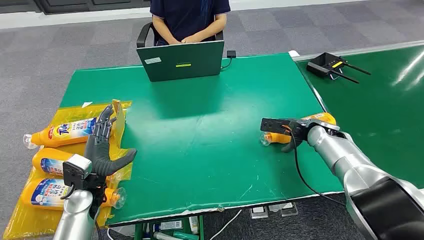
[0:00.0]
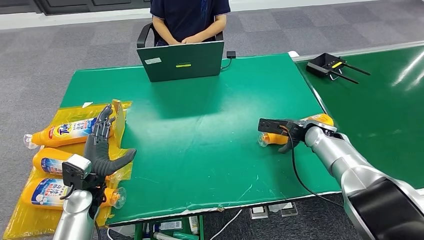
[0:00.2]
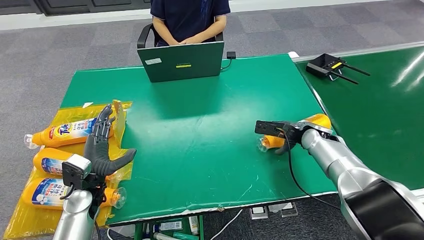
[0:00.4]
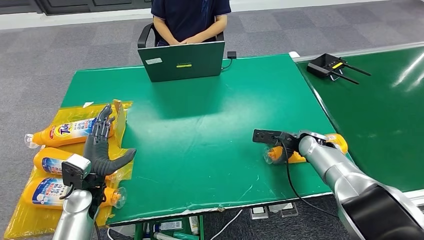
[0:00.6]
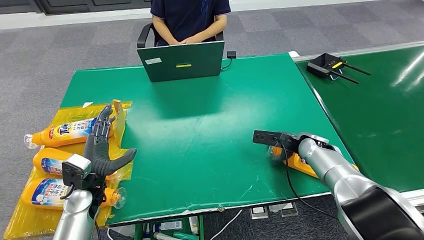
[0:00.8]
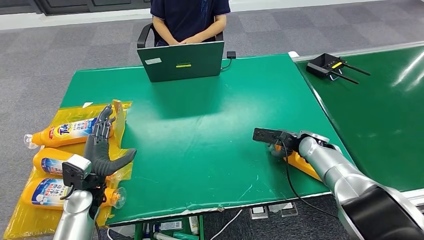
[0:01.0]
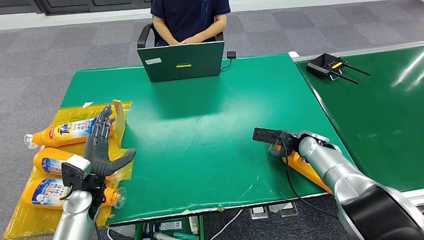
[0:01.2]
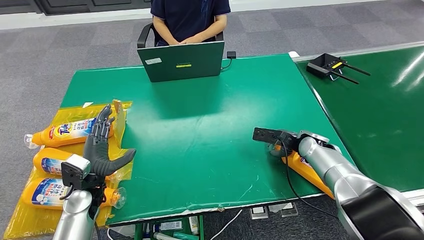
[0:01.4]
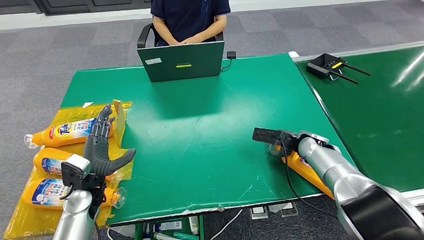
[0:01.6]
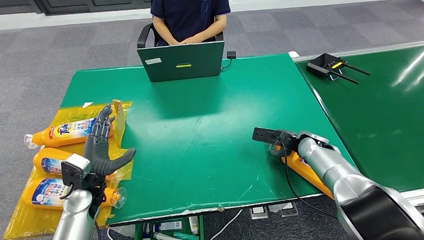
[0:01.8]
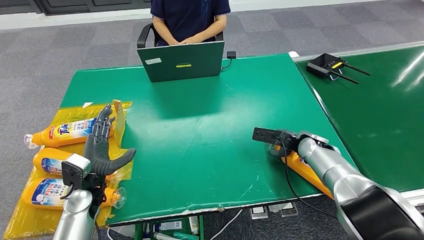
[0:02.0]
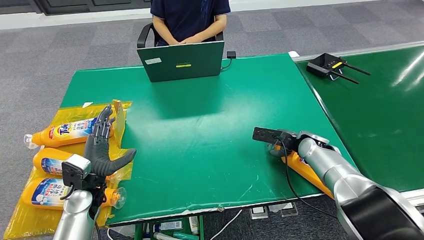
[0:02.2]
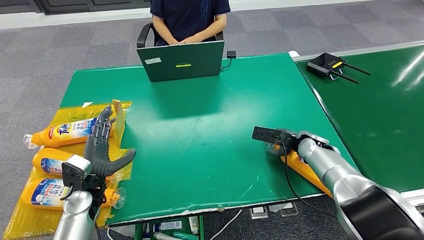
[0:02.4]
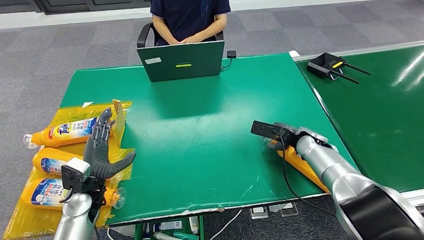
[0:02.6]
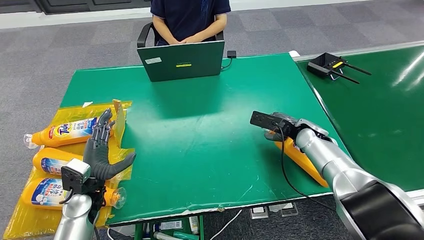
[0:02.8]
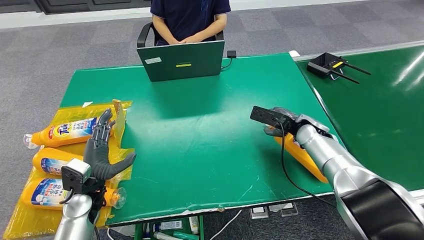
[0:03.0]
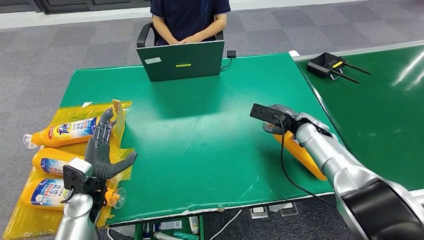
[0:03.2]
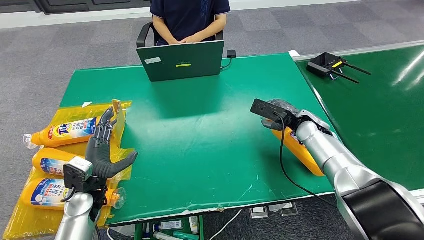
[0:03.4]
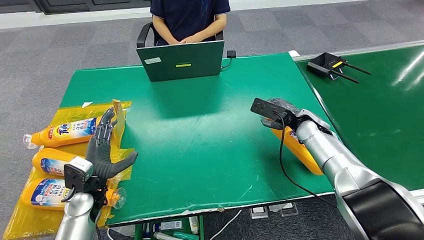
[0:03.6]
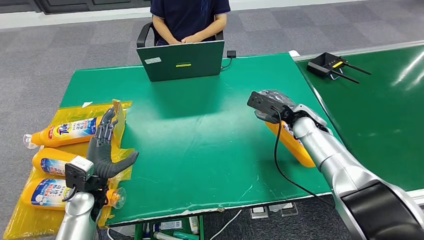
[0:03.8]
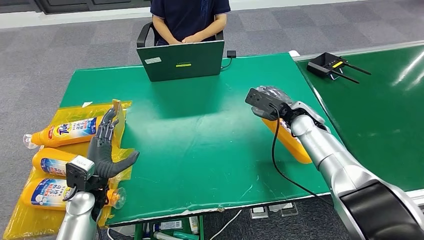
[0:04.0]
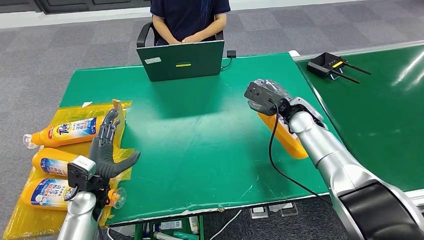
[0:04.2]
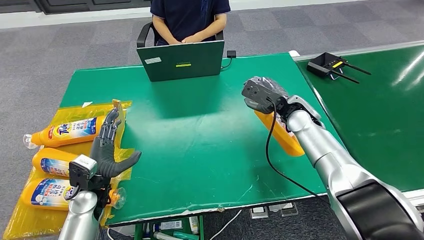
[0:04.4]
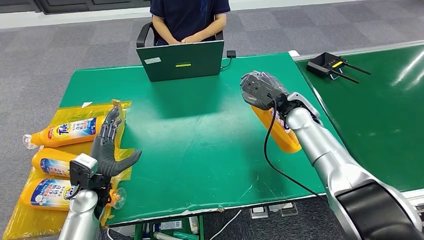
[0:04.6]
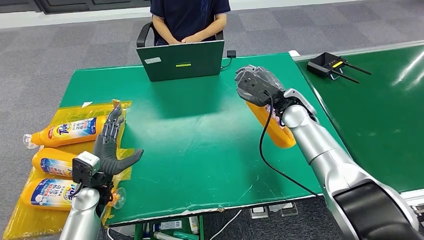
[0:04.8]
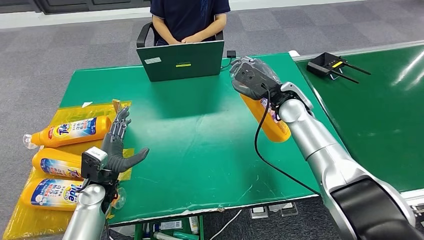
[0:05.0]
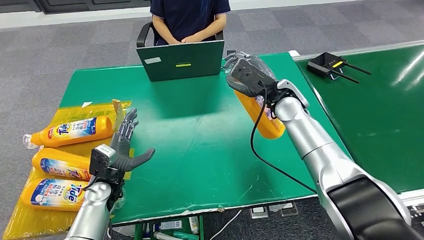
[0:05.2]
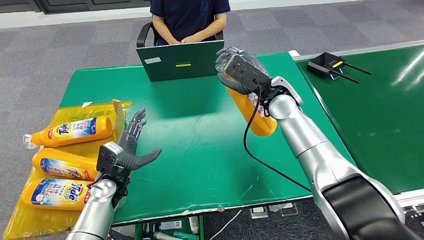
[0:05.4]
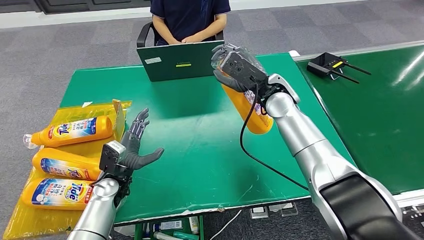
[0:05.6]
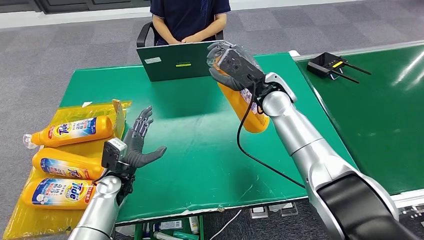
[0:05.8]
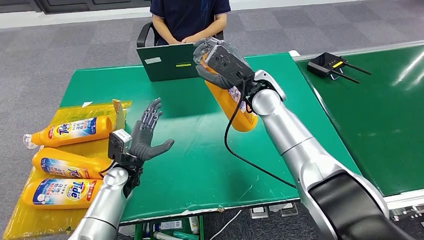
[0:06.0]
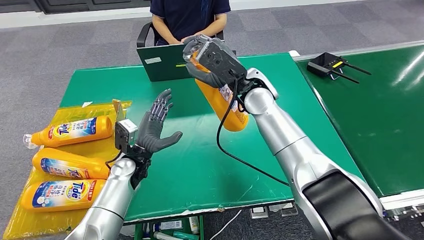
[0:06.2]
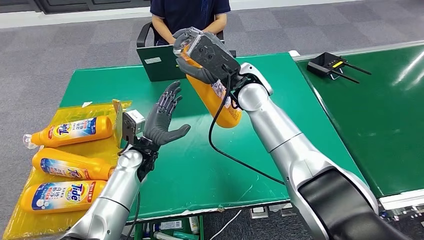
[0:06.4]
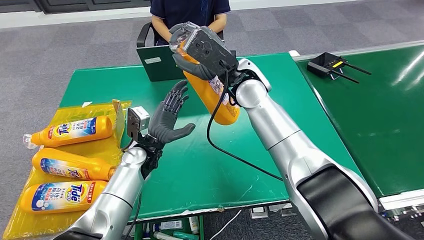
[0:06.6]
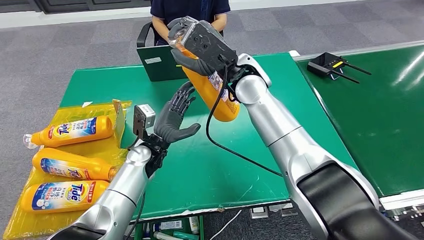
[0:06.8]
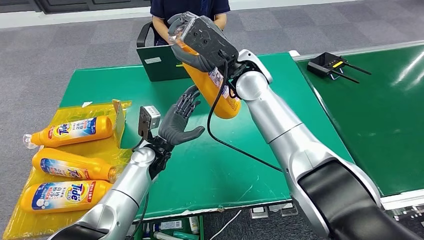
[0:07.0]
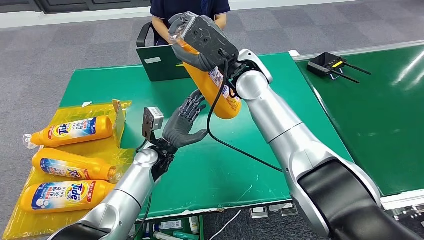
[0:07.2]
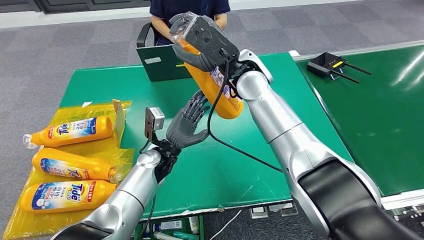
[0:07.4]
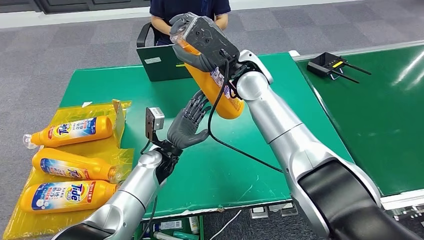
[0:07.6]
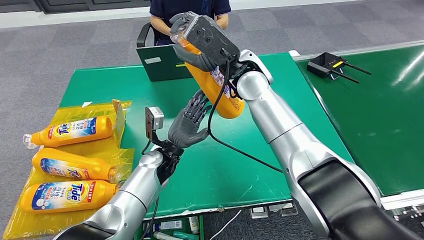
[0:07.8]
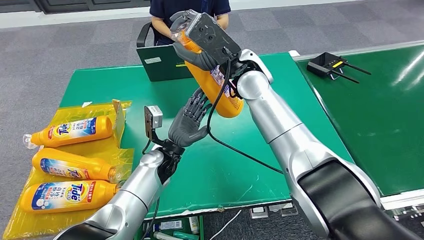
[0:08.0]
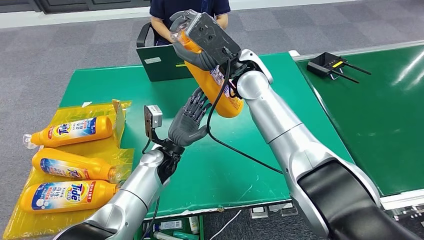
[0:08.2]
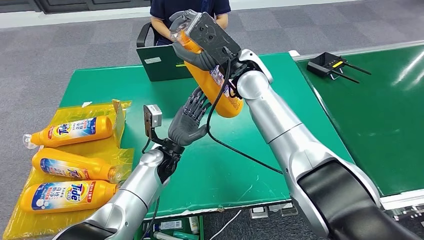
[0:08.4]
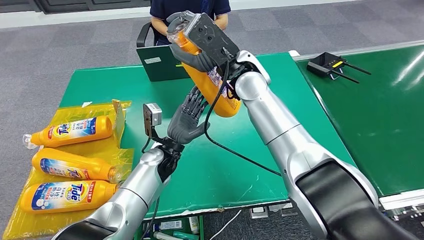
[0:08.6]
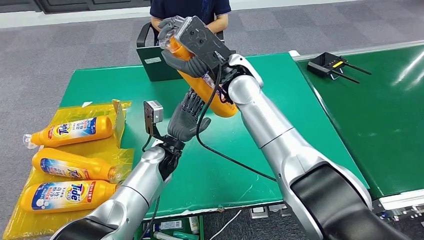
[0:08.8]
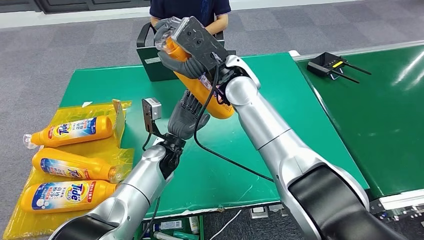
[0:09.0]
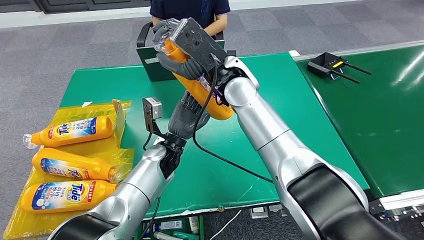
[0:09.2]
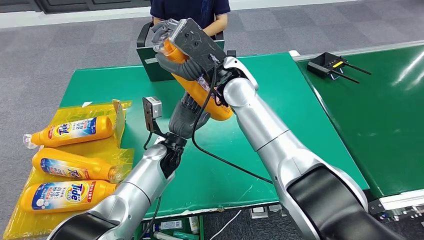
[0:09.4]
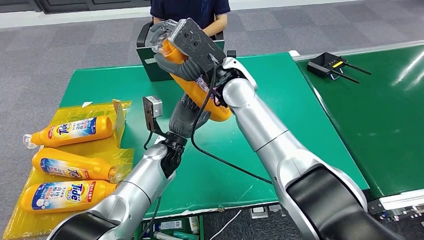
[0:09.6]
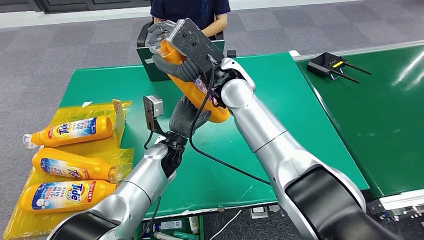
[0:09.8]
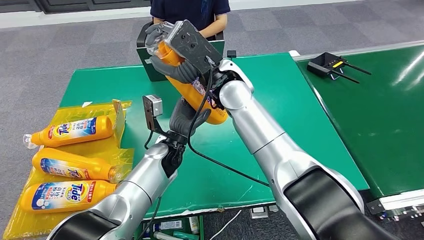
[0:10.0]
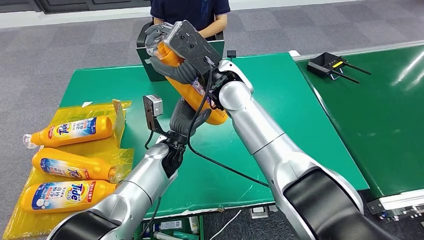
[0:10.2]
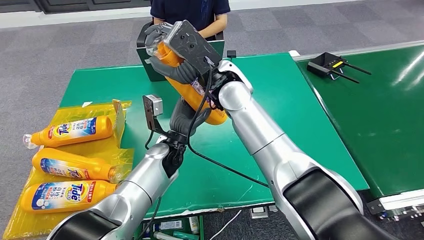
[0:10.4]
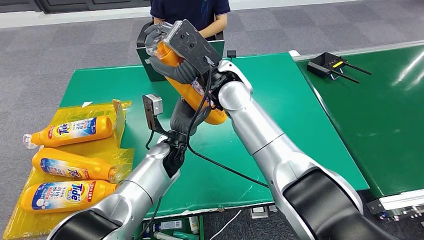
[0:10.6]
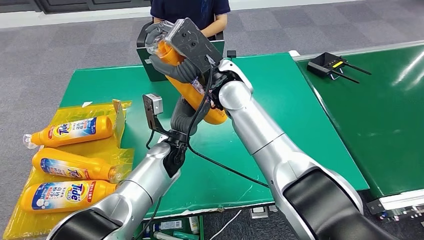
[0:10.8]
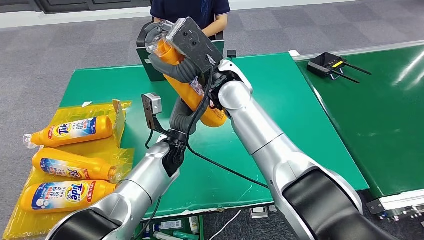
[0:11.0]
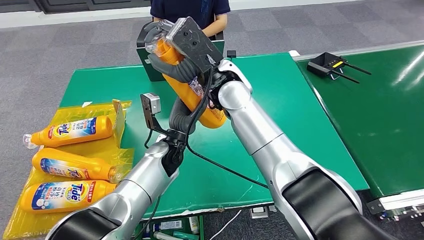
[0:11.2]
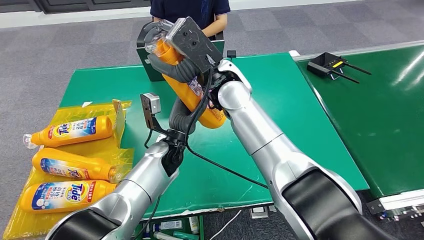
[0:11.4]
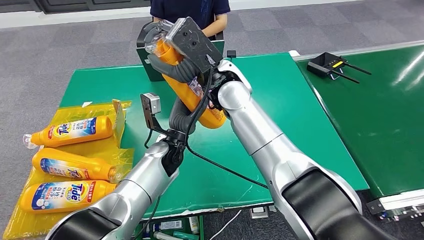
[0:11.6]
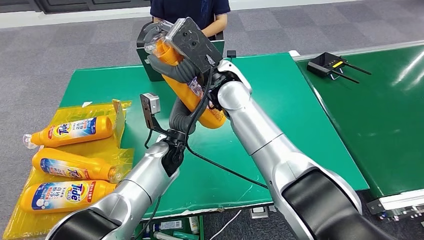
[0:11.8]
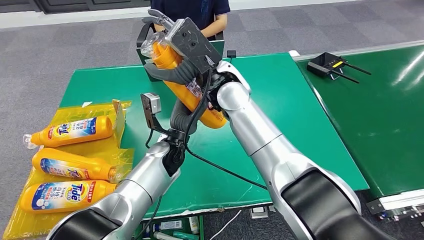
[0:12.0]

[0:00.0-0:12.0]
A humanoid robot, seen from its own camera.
Step, 0:00.0 to 0:05.6: Pick up the bottle from the table.
0:01.6 to 0:03.0: There are only small adjustments of the hands.
0:03.0 to 0:04.4: The right hand moves upward, roughly 5 cm.
0:07.6 to 0:10.4: The hands make only small movements.
0:10.4 to 0:12.0: Neither hand changes place.

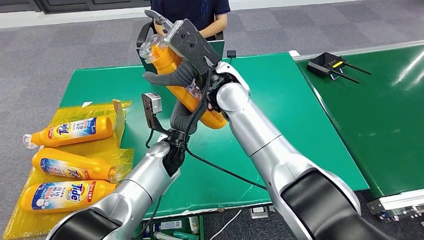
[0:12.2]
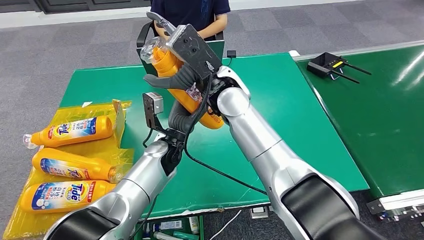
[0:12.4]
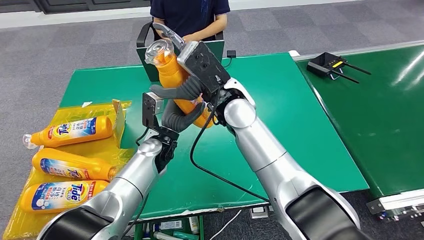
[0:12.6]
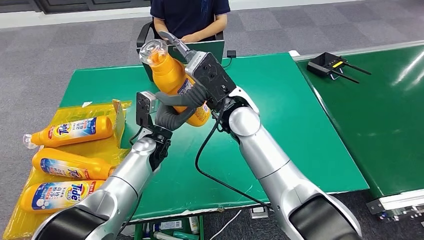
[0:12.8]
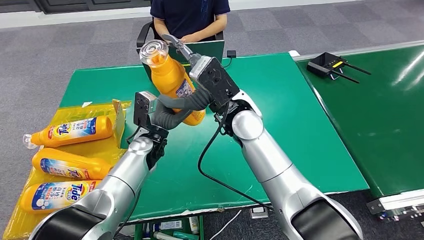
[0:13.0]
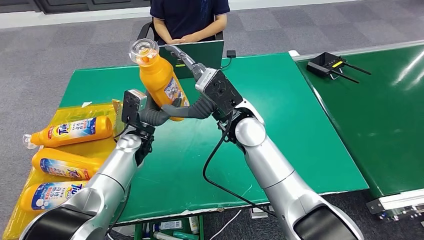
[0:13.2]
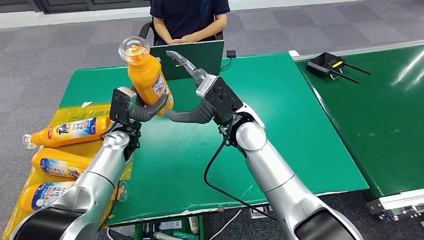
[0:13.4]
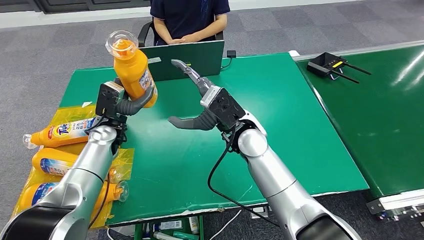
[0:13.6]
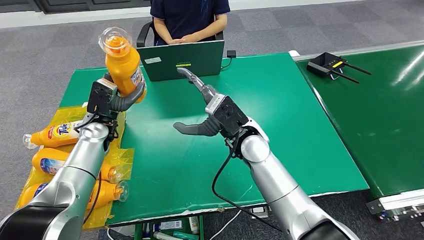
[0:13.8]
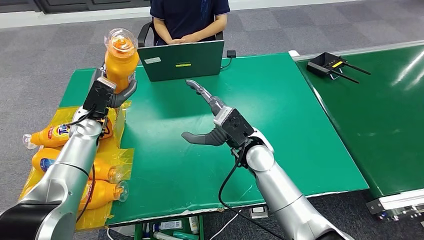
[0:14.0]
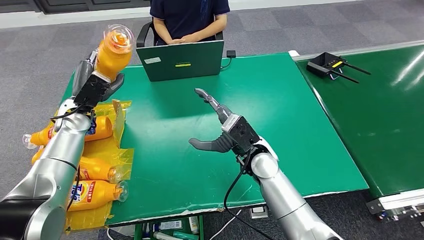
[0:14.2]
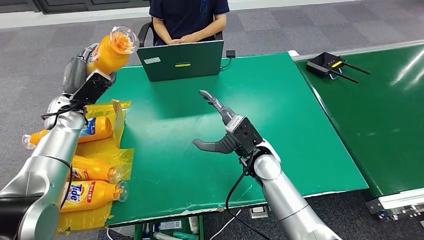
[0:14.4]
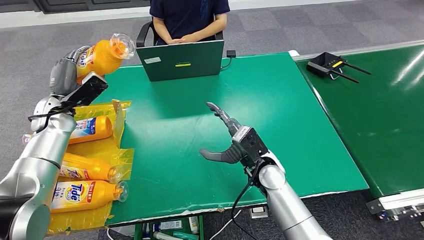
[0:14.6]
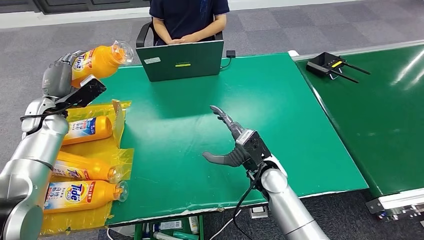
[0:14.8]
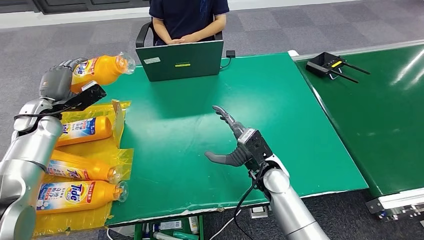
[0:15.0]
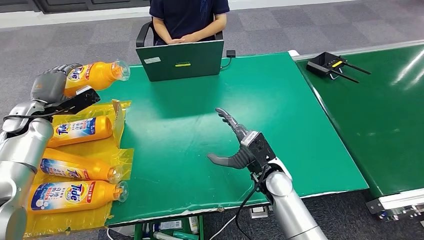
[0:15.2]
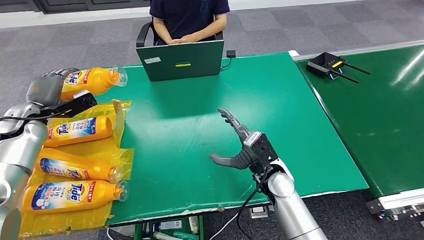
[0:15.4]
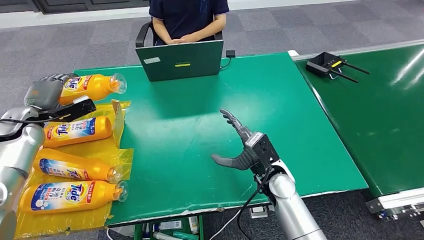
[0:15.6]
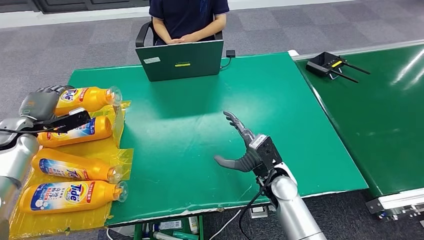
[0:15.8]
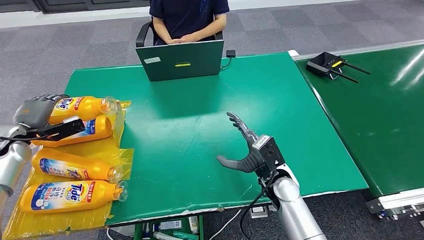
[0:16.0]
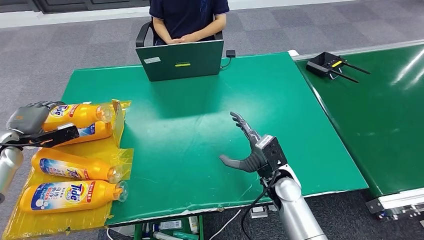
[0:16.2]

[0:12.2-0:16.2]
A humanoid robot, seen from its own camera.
Step, 0:12.2 to 0:16.2: Turn the bottle to the front side.
0:14.8 to 0:16.2: The right hand changes place by some 5 cm. Meanwhile the left hand shifts some 15 cm to the left and backward.

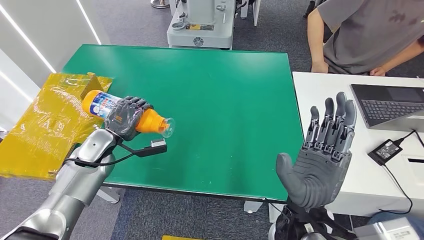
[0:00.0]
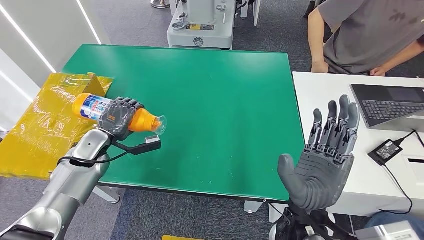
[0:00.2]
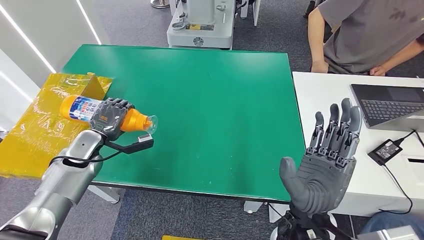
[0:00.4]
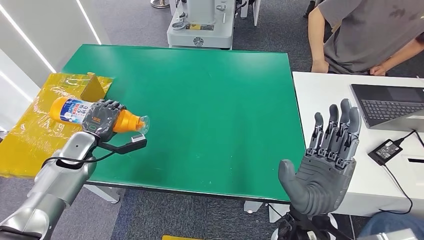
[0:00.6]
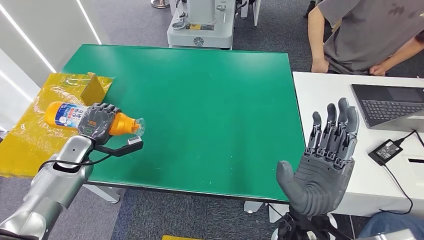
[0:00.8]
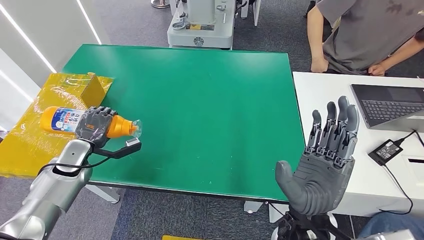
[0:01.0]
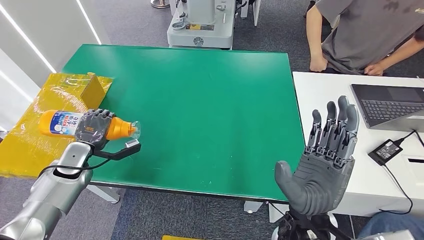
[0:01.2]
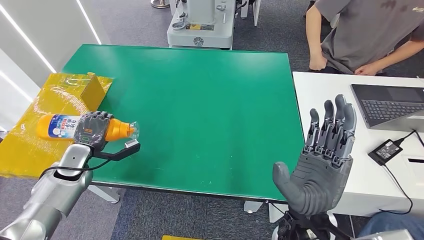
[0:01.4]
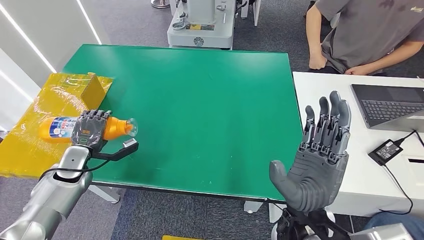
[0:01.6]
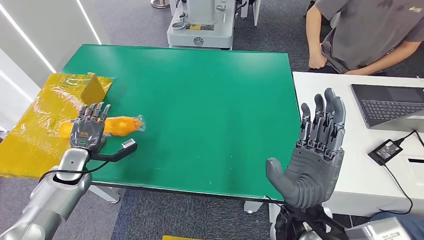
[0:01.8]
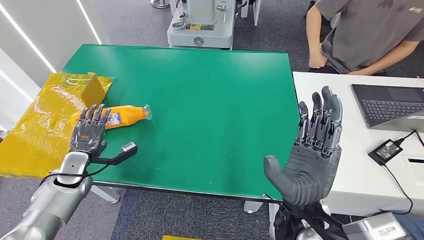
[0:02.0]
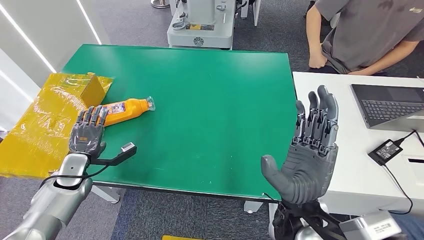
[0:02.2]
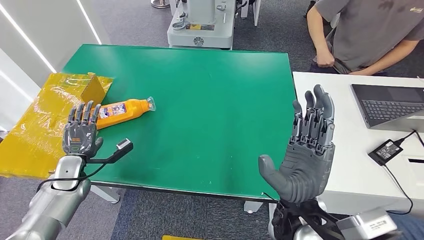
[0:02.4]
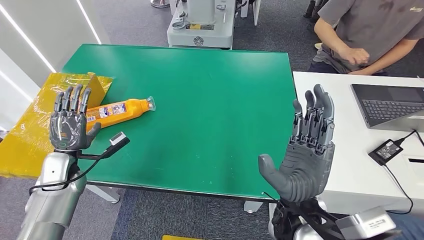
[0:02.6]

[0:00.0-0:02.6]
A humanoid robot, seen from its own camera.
0:00.0 to 0:01.2: The left hand shifts approximately 10 cm to the left.
